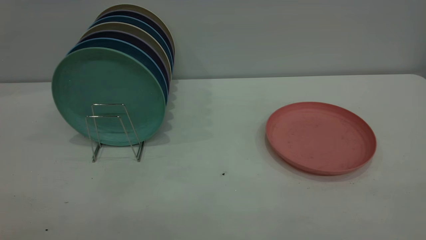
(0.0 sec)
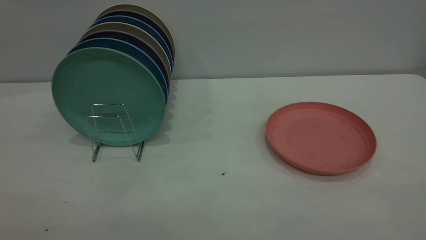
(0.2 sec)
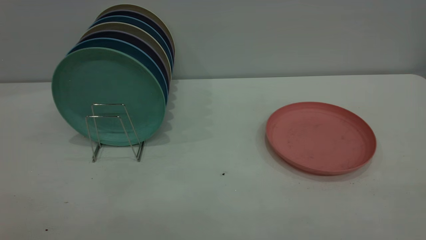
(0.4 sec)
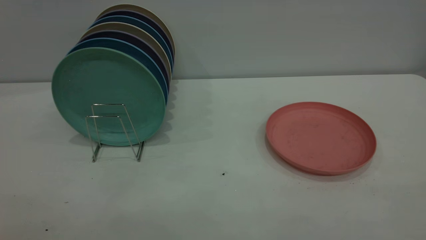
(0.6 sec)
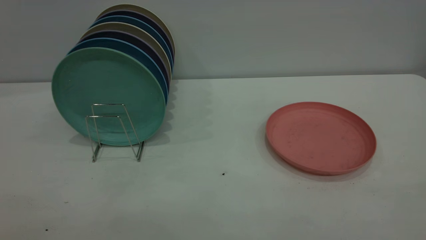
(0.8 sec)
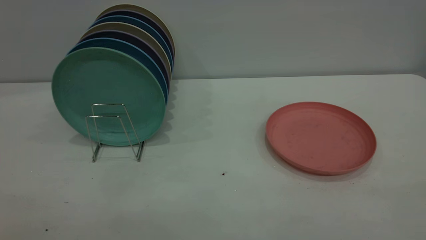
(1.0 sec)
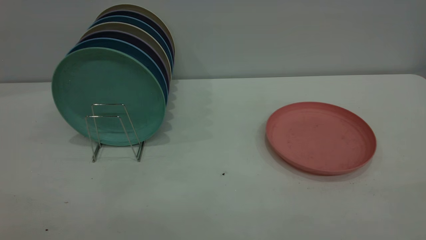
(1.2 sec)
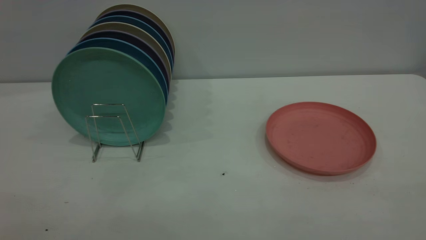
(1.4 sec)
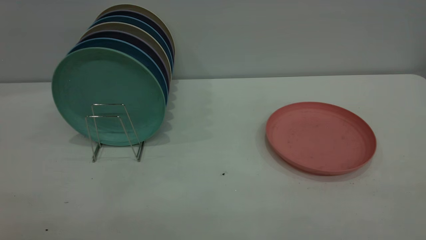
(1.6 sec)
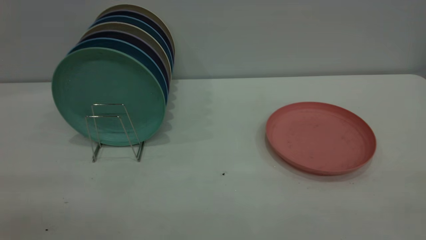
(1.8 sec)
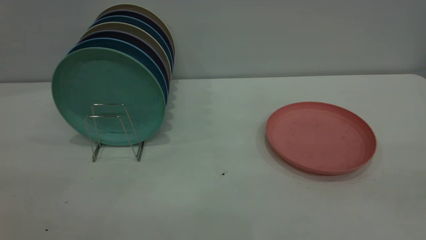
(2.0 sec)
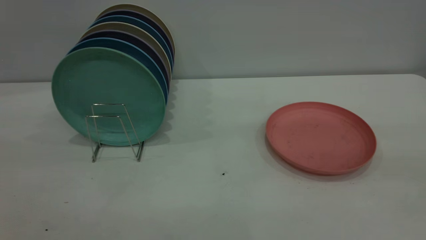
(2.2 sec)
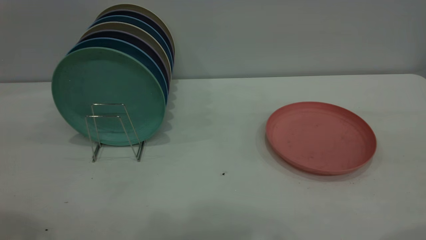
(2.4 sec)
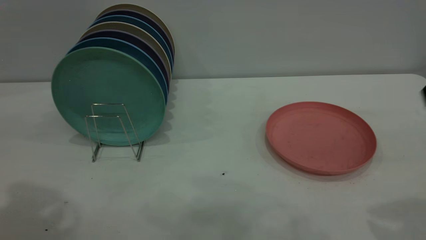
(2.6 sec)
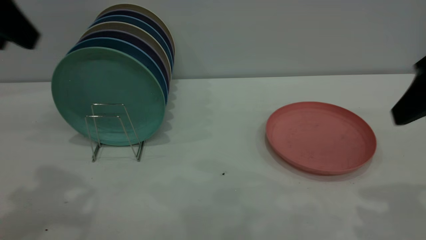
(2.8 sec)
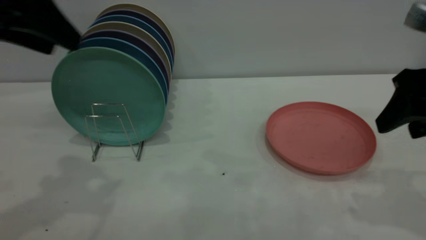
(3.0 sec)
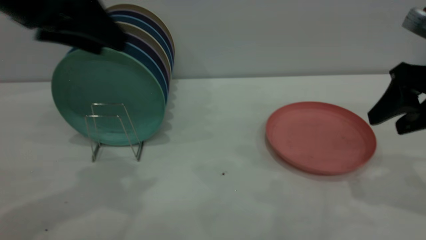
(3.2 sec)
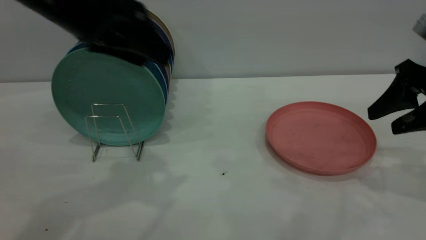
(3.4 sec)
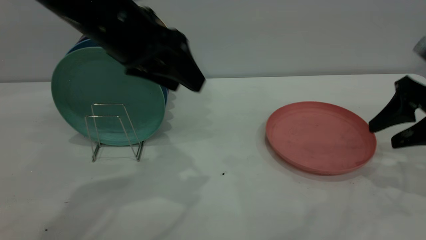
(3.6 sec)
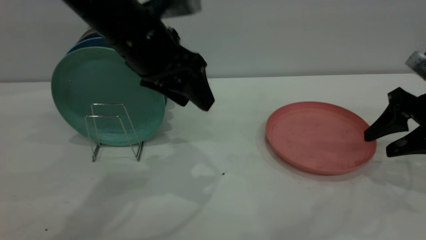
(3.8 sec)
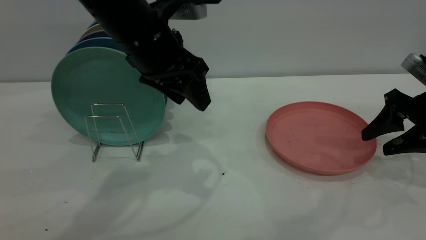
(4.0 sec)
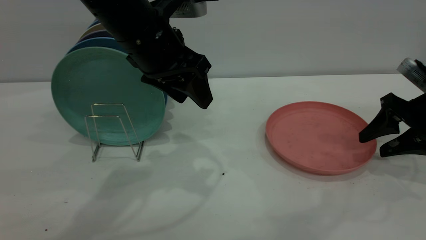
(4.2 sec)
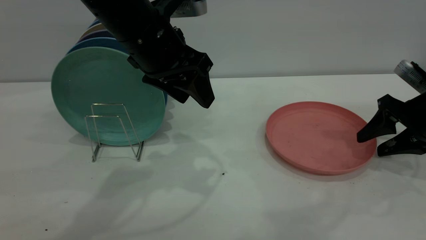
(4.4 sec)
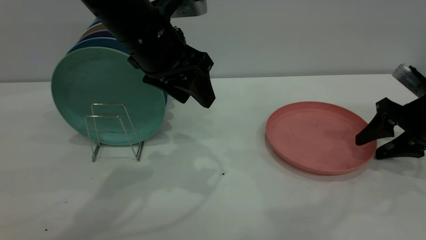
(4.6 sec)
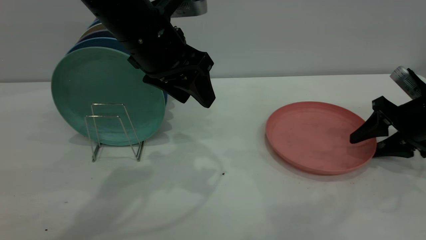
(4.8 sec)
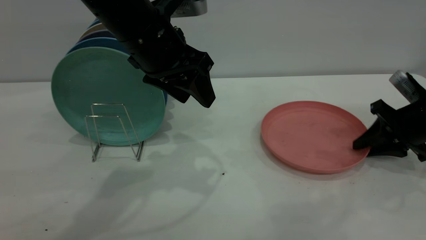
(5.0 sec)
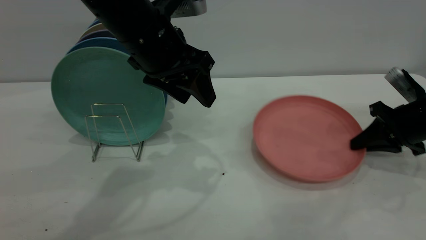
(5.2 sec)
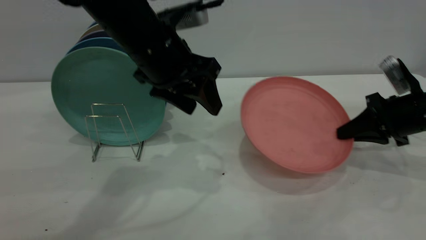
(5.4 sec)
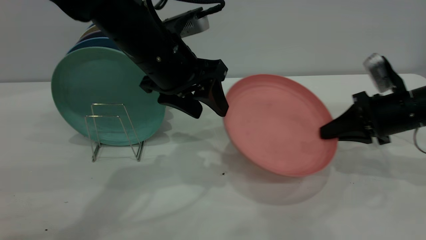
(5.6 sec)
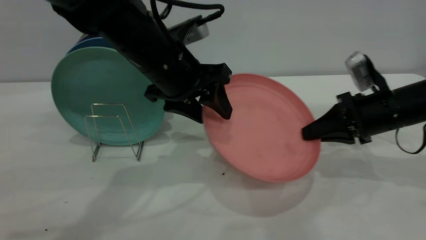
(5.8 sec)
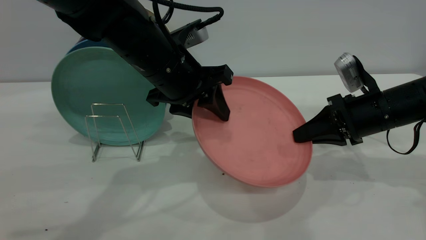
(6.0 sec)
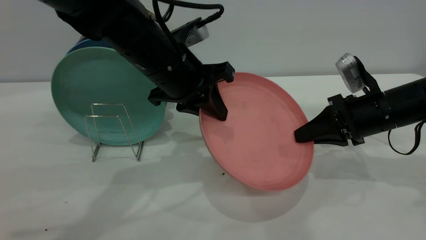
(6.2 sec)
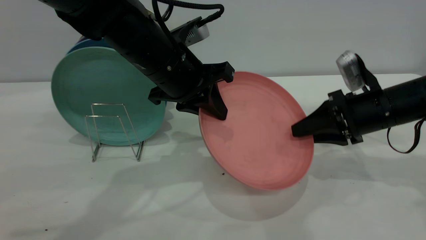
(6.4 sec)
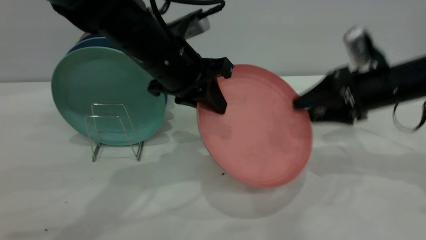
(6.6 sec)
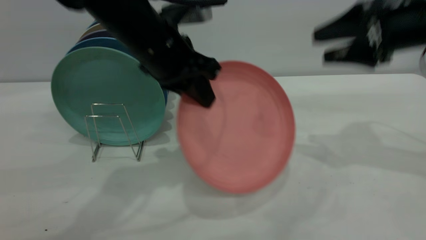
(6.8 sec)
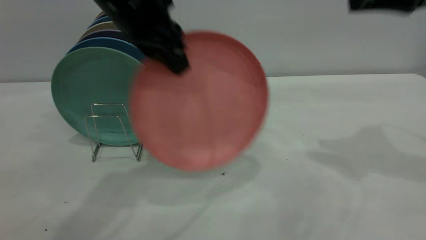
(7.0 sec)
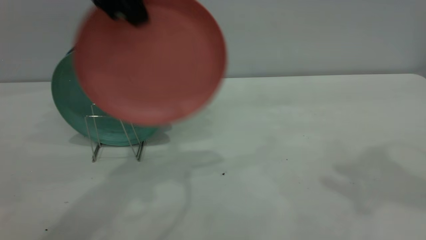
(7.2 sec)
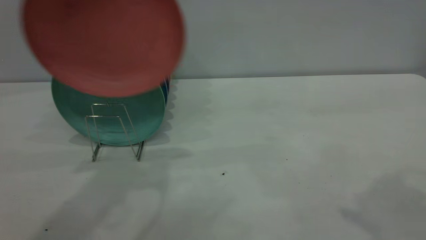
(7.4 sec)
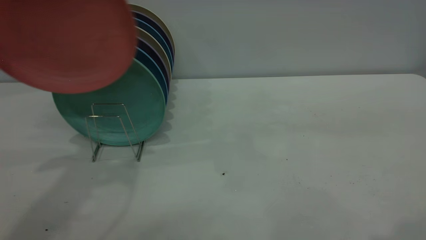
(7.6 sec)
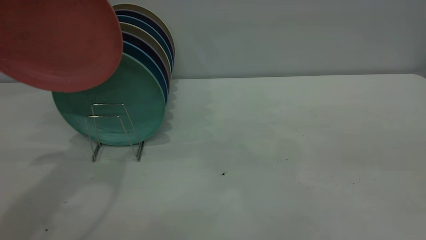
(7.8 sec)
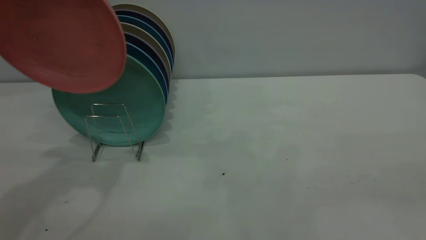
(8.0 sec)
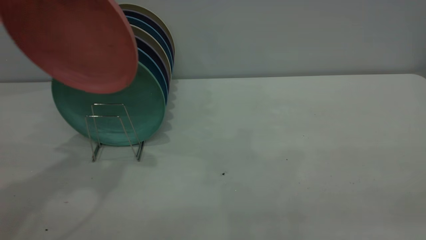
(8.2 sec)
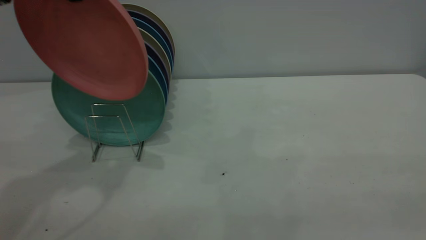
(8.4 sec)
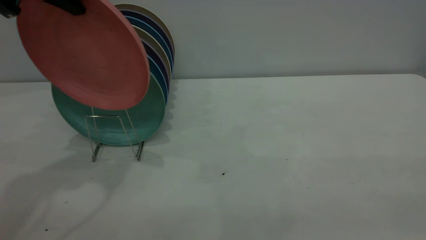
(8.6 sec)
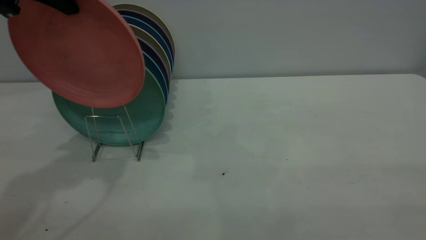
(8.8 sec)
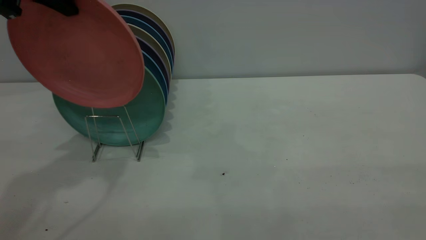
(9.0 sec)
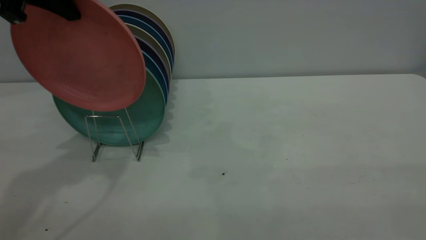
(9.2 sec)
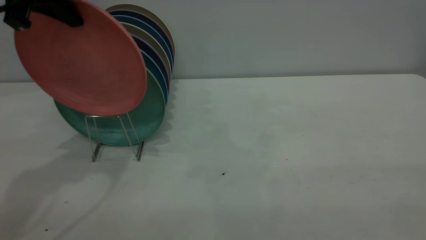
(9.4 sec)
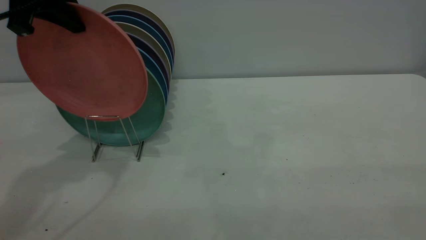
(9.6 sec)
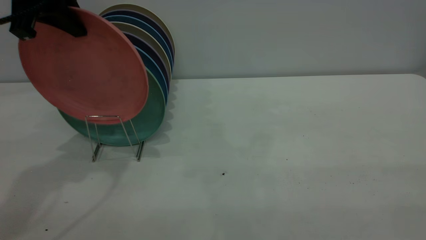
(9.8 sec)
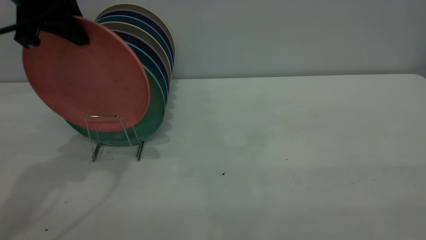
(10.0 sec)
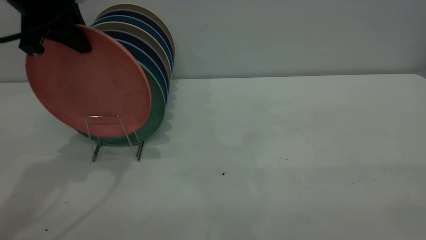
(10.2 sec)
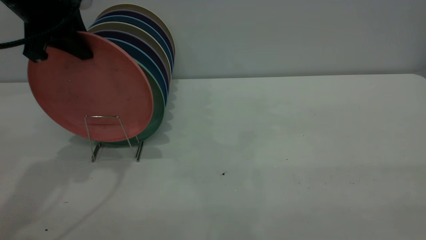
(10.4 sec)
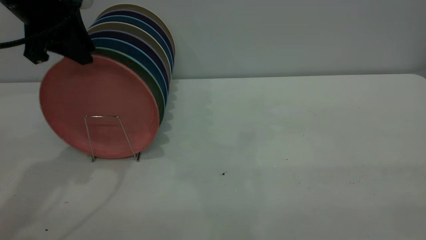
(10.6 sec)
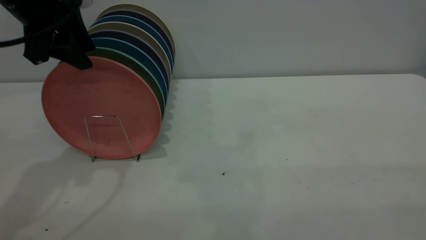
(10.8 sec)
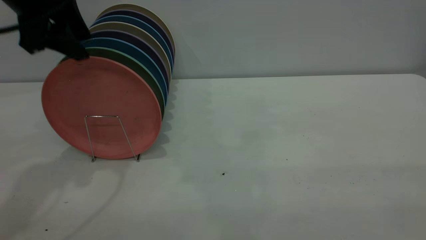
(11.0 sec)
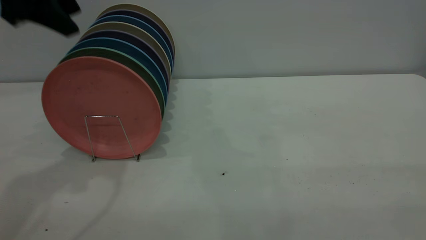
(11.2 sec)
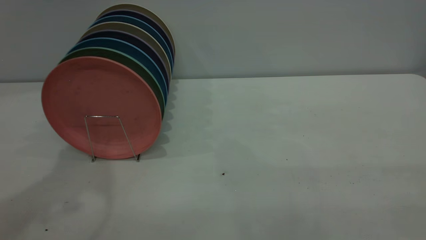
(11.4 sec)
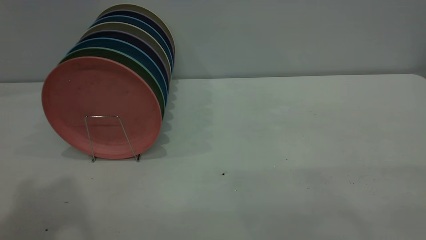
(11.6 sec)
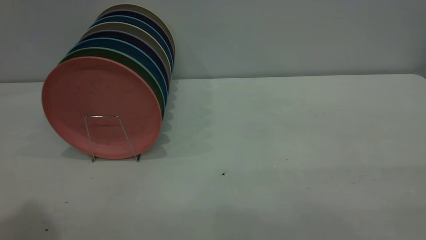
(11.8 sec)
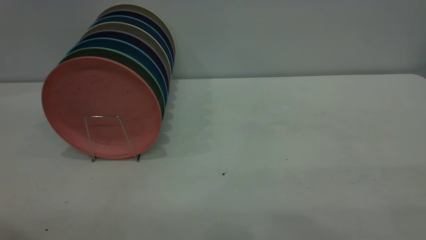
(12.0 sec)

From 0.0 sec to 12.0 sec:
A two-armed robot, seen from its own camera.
Task of the whole recording: the right gripper grasp the pink plate, the right gripper pass the pink plate to the left gripper, and the left gripper place the pink plate on the plate rack.
Step, from 0.0 sec to 5.2 sec: Pick up the plate with the right gripper.
Step, from 5.4 sec to 6.6 sec: Pass the plate from the right gripper to the left gripper.
Step, from 6.8 sec to 11.0 sec: Place the plate on the shelf.
From 0.0 sec to 1.6 sec: The two grippers keep their place.
From 1.6 sec to 3.0 sec: The two grippers go some 30 cm forward. The left gripper opens.
From 3.0 sec to 4.4 sec: The right gripper is displaced downward, forward and to the right by approximately 15 cm, while the left gripper goes approximately 20 cm to the right, downward and forward.
From 4.4 sec to 6.0 sec: The left gripper goes approximately 5 cm downward, and closes up; the right gripper heads to the left, covering about 10 cm, and closes.
From 6.0 sec to 7.6 sec: The right gripper heads upward and backward, covering about 40 cm, and opens up. Meanwhile the left gripper travels upward and to the left by some 25 cm, and closes up.
From 7.6 sec to 9.0 sec: The left gripper ends up approximately 5 cm from where it was.
From 9.0 sec to 10.4 sec: The left gripper shifts about 5 cm downward.
From 10.4 sec to 12.0 sec: The left gripper travels backward and upward by approximately 30 cm, and opens up.

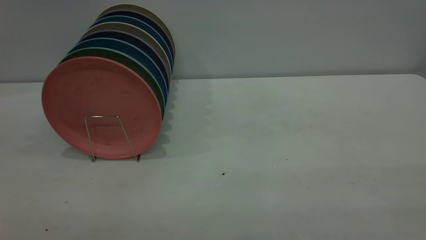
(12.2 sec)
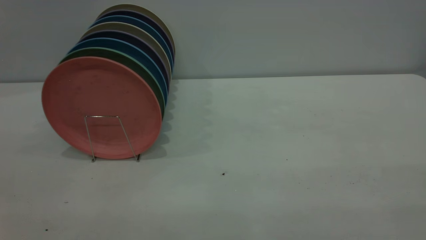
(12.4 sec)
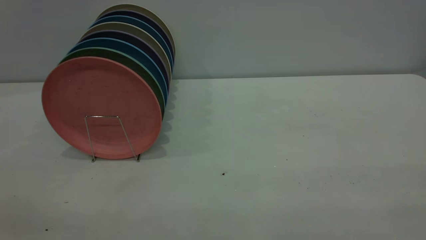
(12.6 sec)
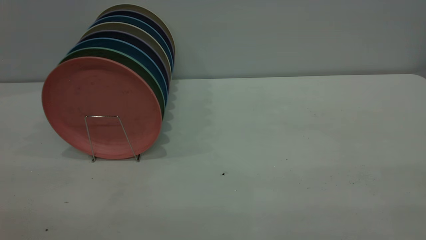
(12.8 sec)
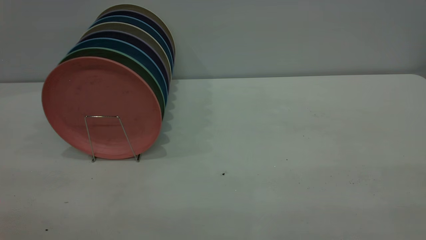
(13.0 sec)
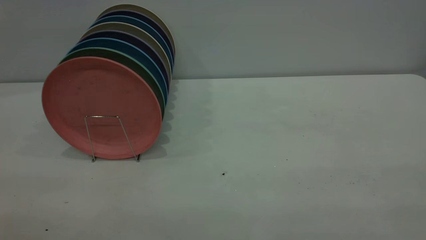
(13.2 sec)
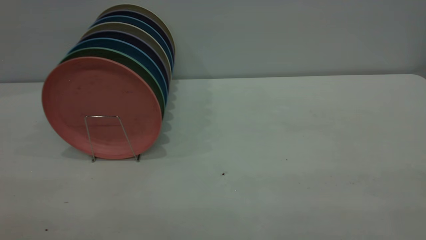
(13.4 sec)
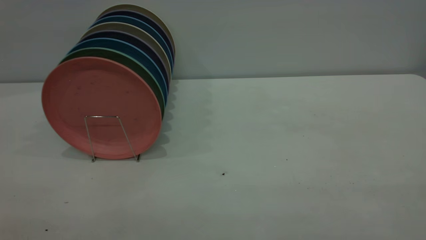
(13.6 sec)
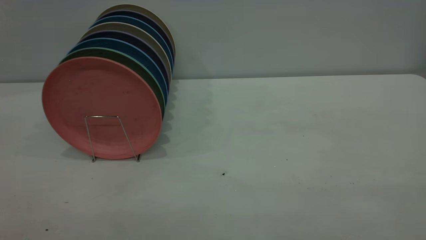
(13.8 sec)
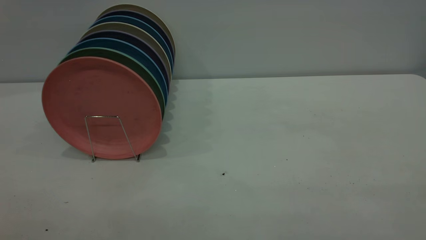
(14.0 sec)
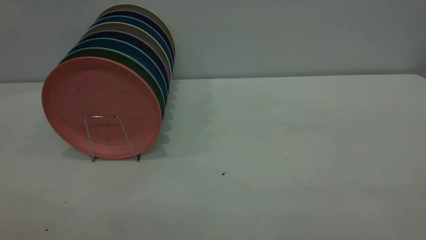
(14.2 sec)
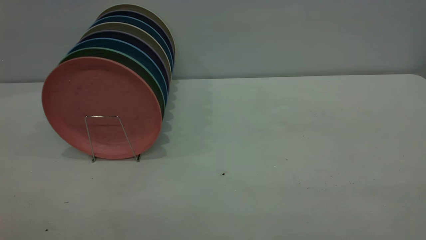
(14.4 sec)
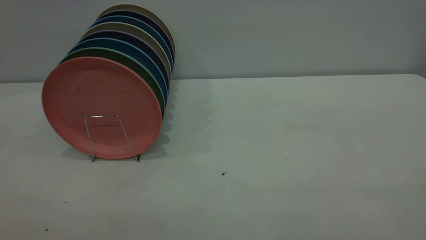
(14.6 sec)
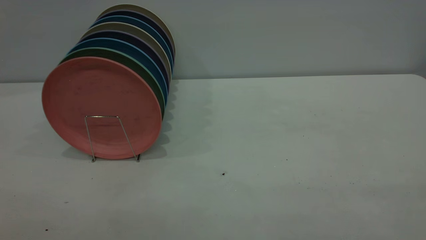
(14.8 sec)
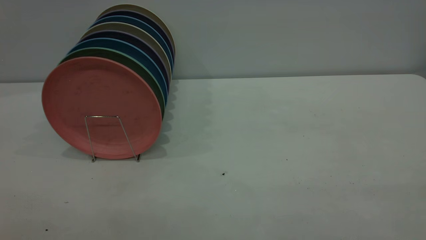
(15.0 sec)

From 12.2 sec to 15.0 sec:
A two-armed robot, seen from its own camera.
Task of the whole recording: the right gripper grasp the pink plate, the right gripper pass the pink plate to the left gripper, and the left gripper place the pink plate on the plate rack.
From 13.6 sec to 15.0 sec: The two grippers keep their place.
